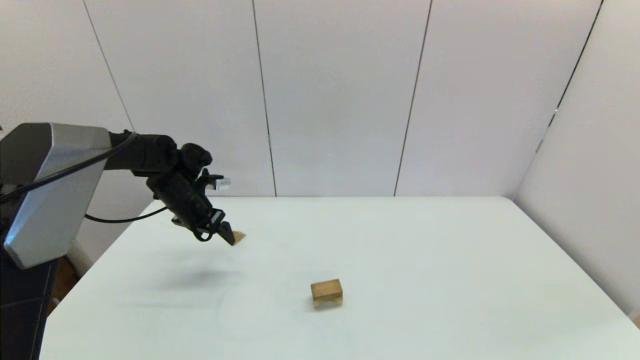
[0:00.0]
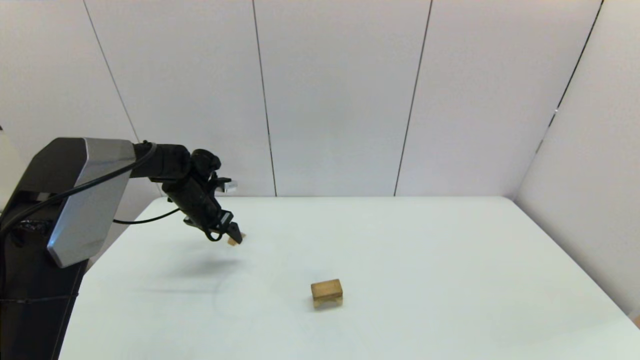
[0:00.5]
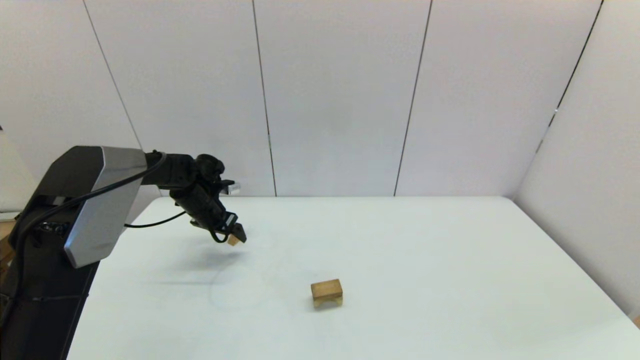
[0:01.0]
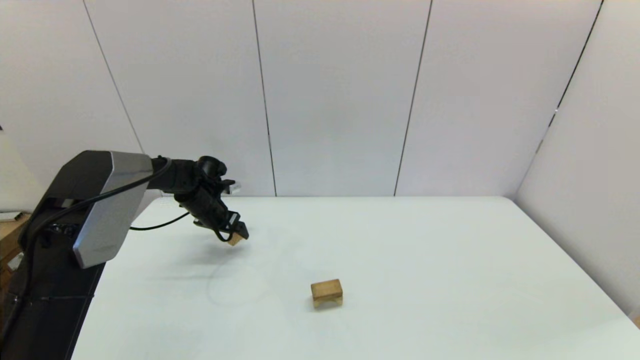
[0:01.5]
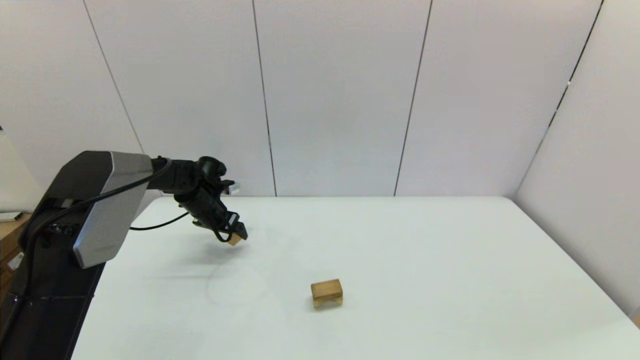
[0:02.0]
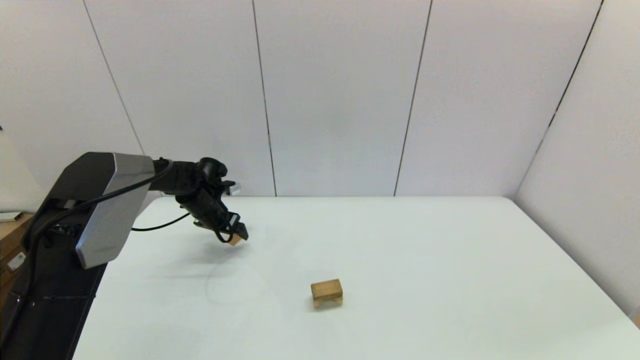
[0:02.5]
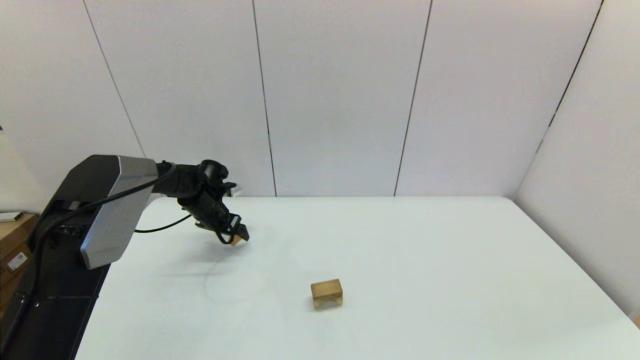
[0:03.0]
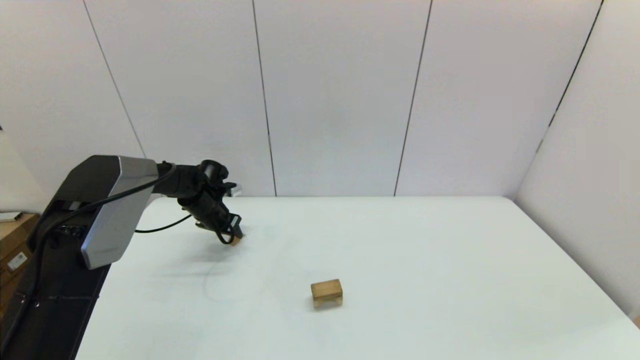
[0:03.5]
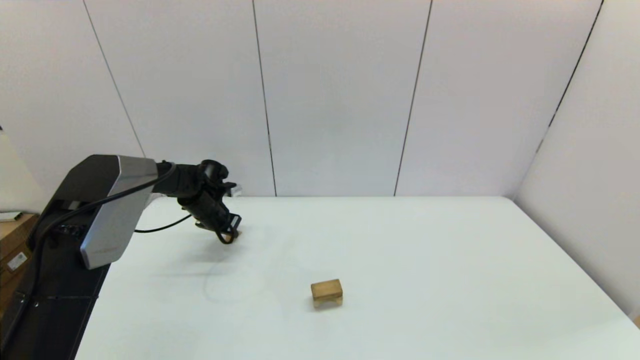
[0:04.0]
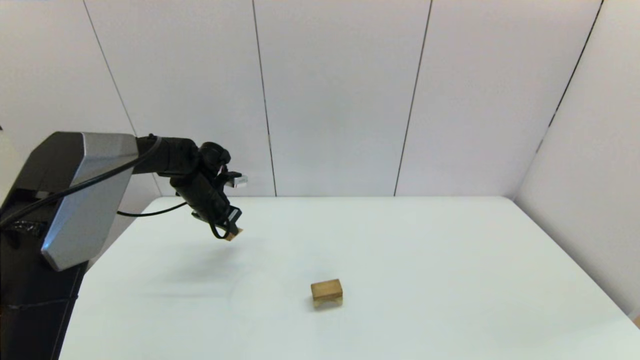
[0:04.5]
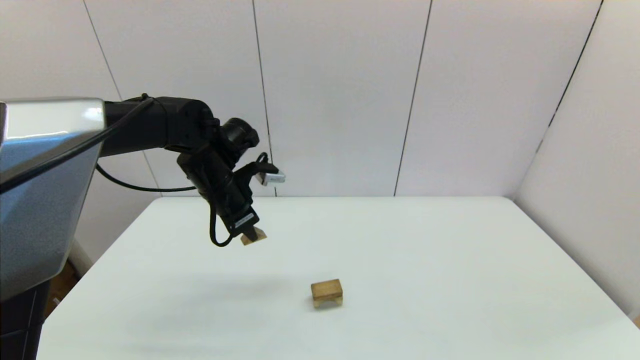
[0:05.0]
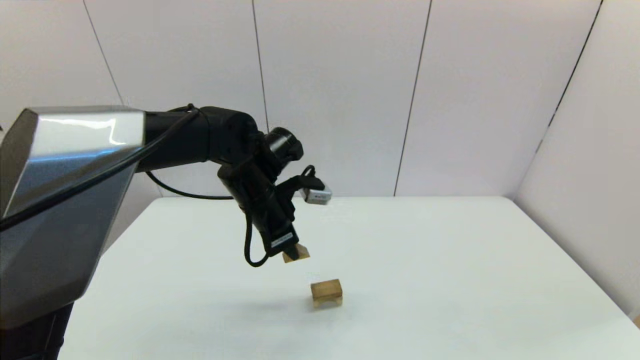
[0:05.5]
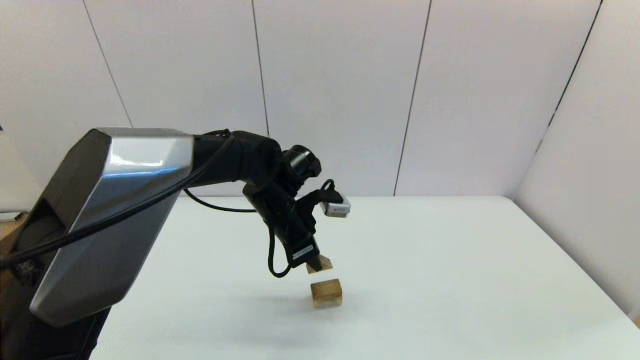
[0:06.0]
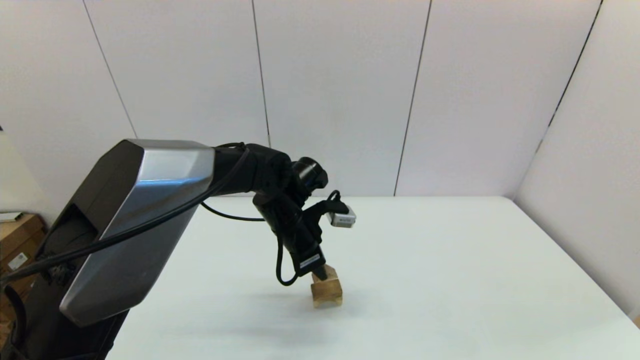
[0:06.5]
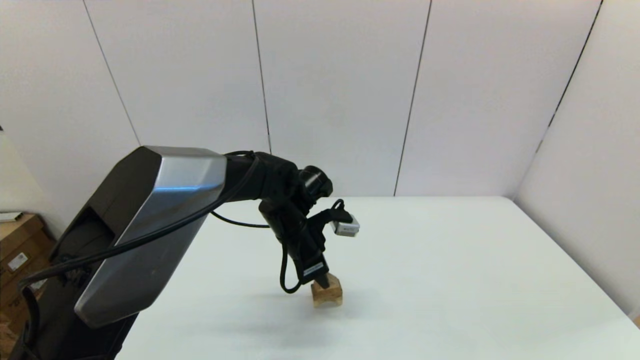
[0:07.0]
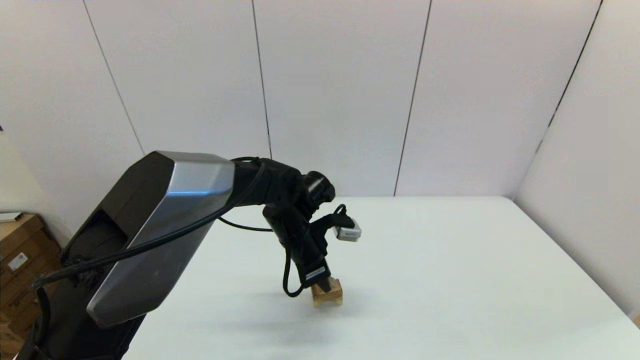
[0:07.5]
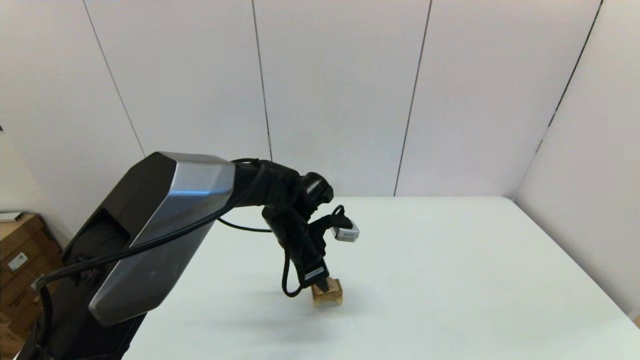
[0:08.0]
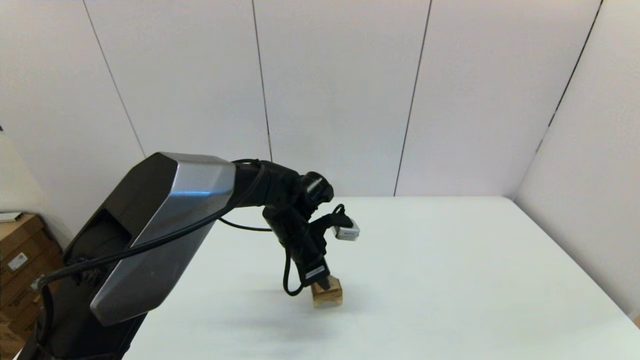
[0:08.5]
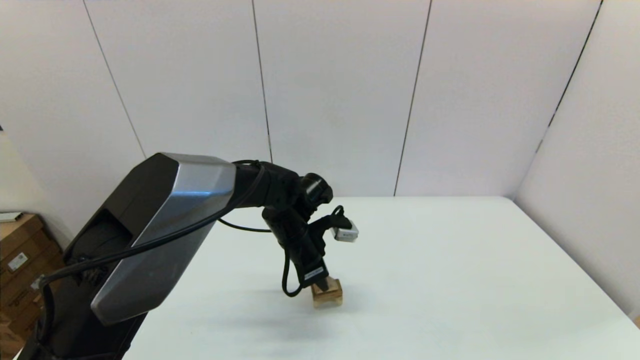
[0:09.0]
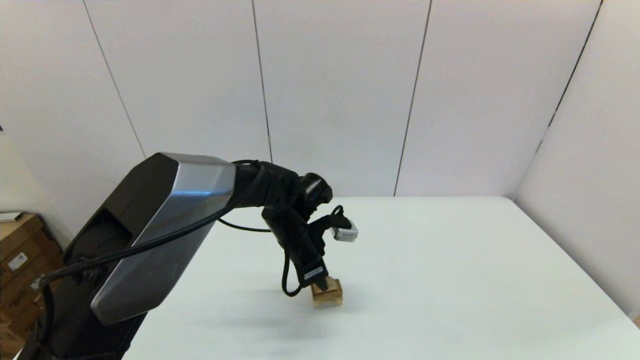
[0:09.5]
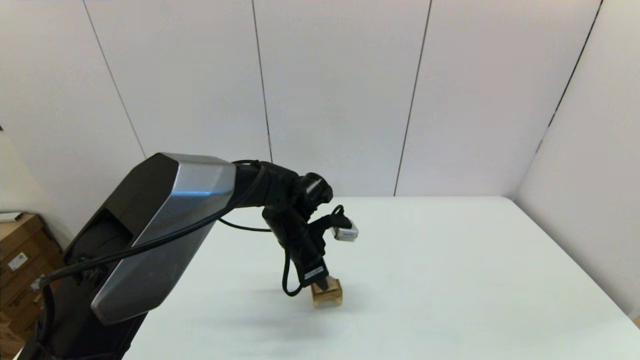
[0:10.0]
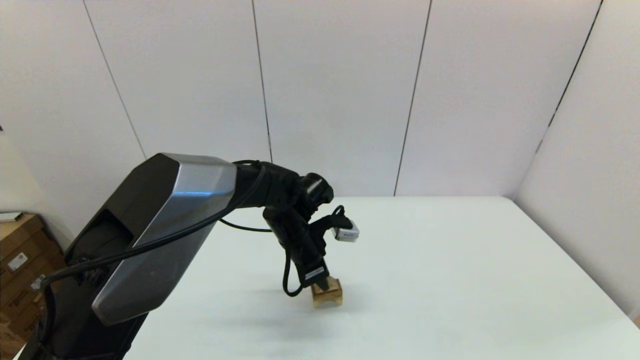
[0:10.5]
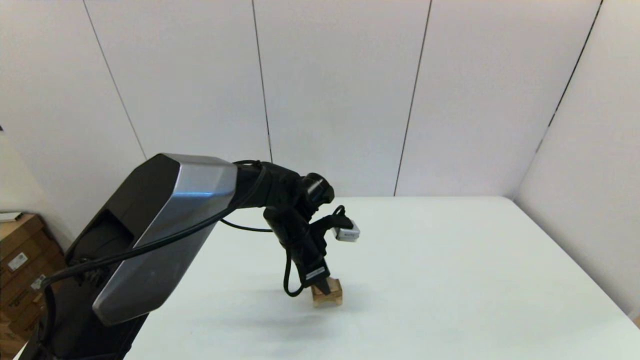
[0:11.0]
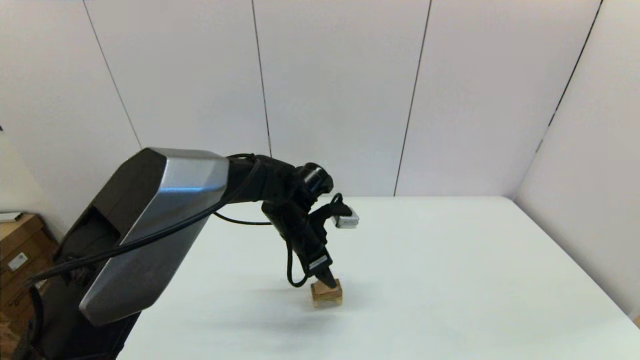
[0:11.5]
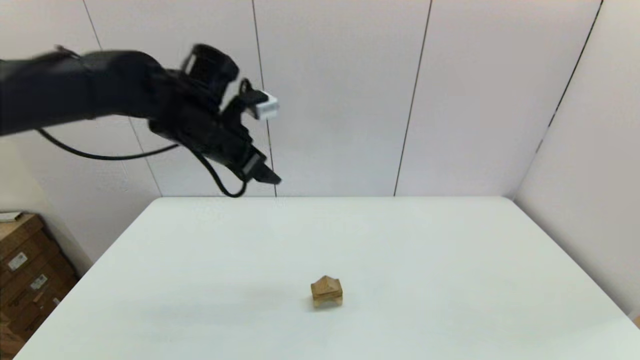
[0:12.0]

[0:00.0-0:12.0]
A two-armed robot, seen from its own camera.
Task of the whole recording: place the arched building blocks in the center of the table, set up the rectangular building blocks, and then set up the triangular building blocks.
Step, 0:00.0 to 0:03.5: Grasp the triangle-shaped block with the left gripper.
0:00.0 to 0:02.0: The left gripper shifts roughly 5 cm downward.
0:02.0 to 0:04.0: The left gripper closes.
0:04.0 to 0:06.0: The left gripper travels to the right, backward and upward by approximately 25 cm.
0:06.0 to 0:08.0: The left gripper shifts by about 5 cm.
0:08.0 to 0:10.0: The two grippers keep their place.
0:10.0 to 0:12.0: The left gripper is displaced upward and to the left by roughly 25 cm, and opens its fingers.

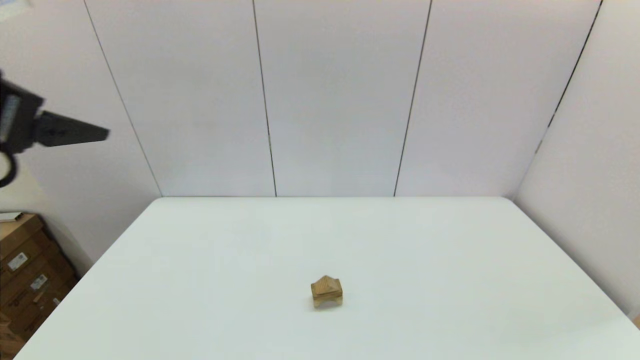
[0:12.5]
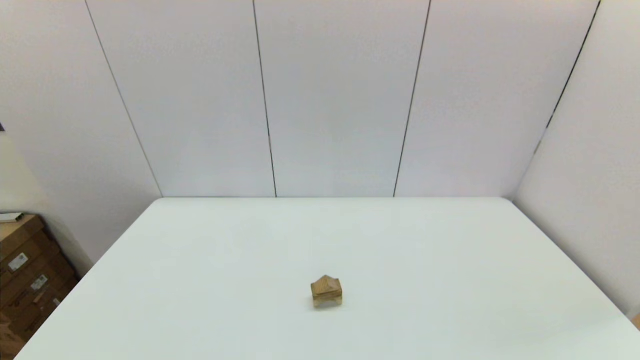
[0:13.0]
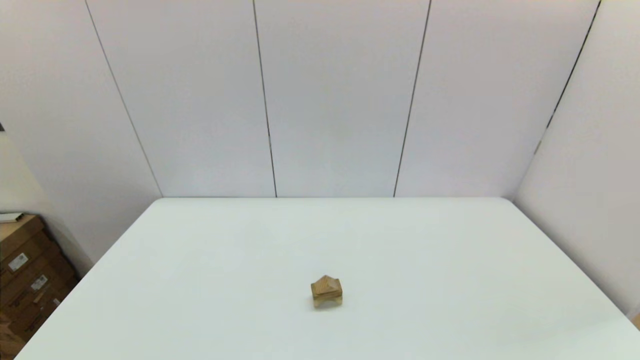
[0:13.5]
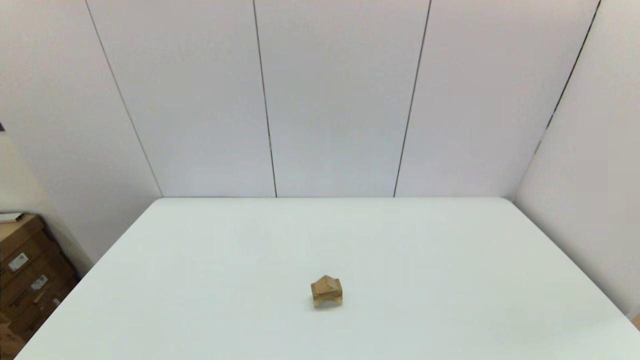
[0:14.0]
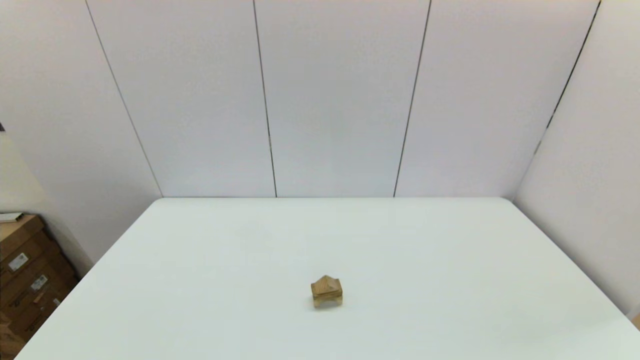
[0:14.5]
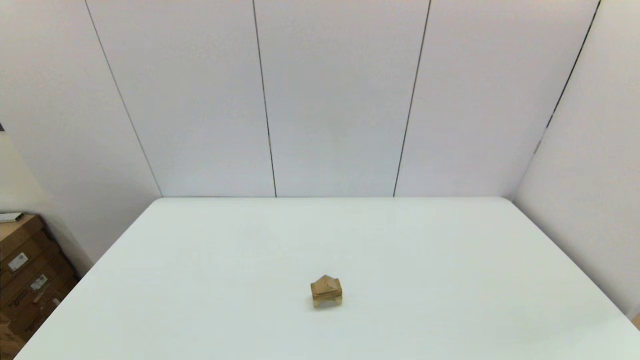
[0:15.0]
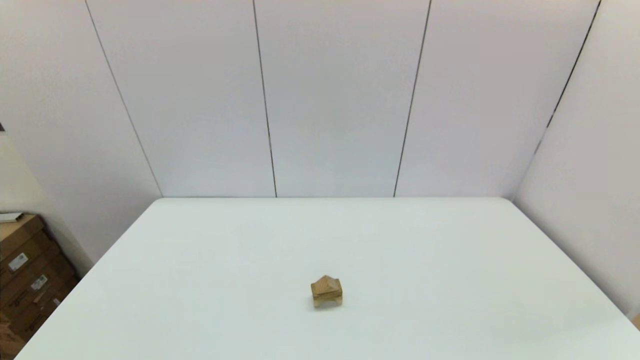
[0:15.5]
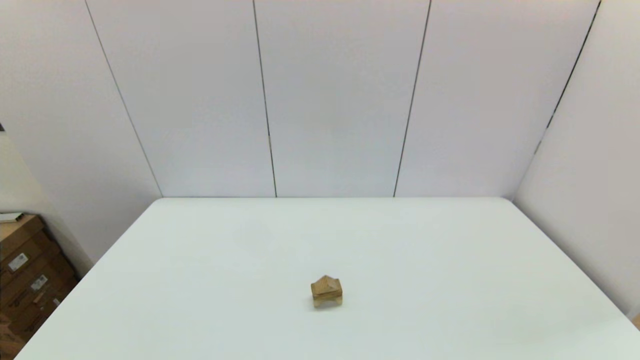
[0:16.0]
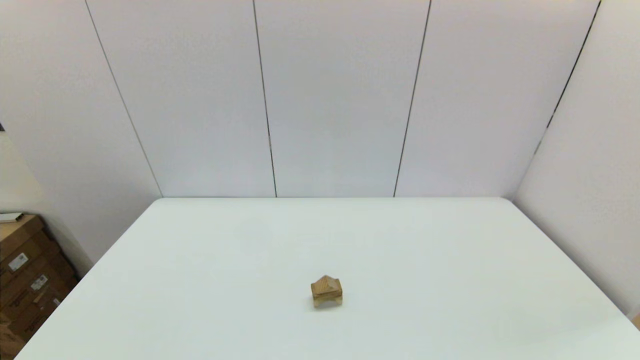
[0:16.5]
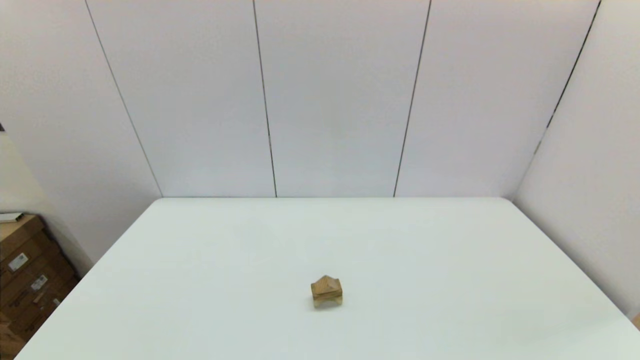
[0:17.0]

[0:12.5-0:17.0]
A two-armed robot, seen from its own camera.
Task of the whole recording: place the arched building blocks in the center of the table, set up the rectangular building blocks, and then set up the triangular building blocks.
0:12.5 to 0:14.5: The left gripper moves downward and backward, approximately 35 cm.

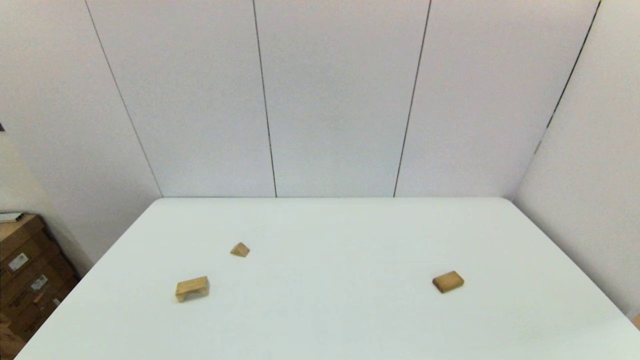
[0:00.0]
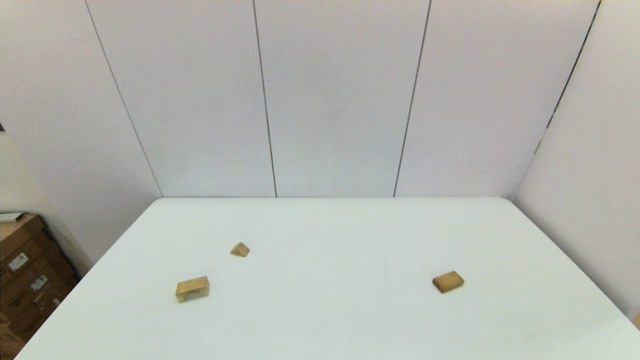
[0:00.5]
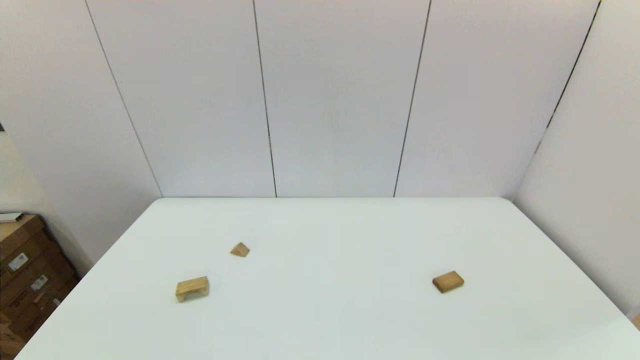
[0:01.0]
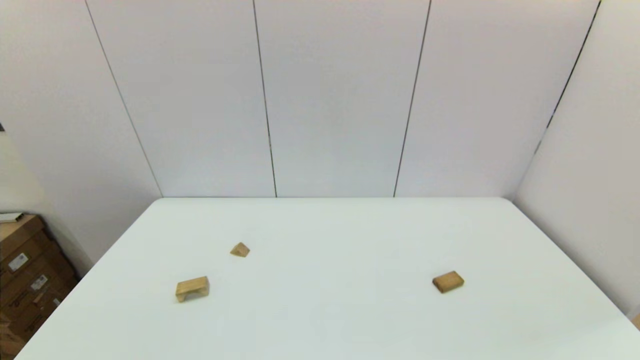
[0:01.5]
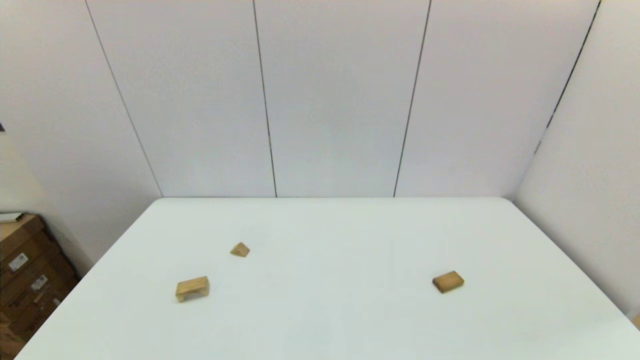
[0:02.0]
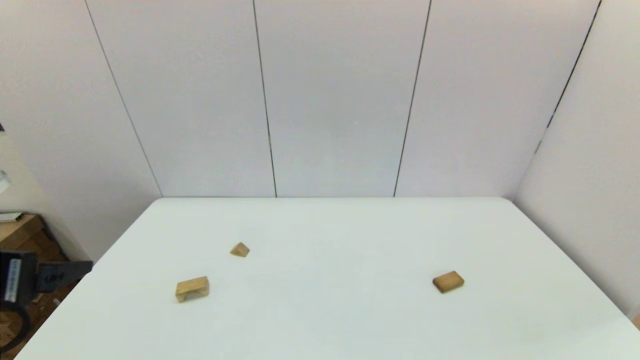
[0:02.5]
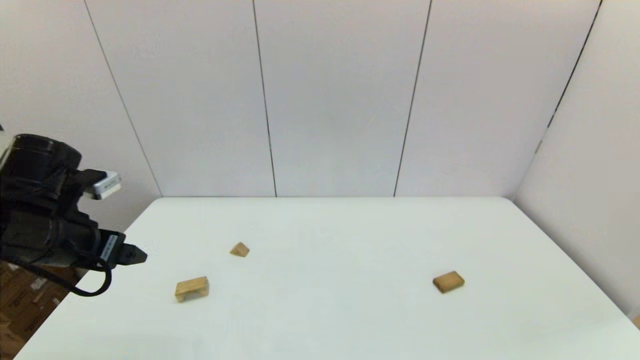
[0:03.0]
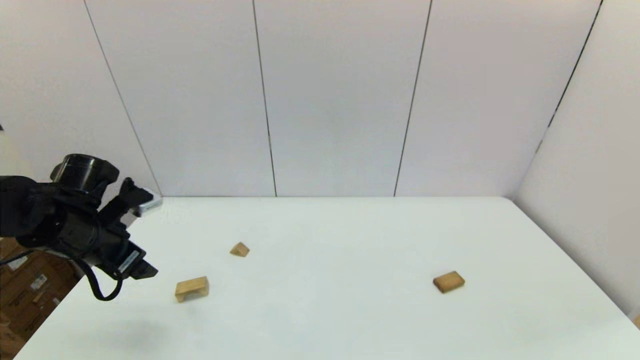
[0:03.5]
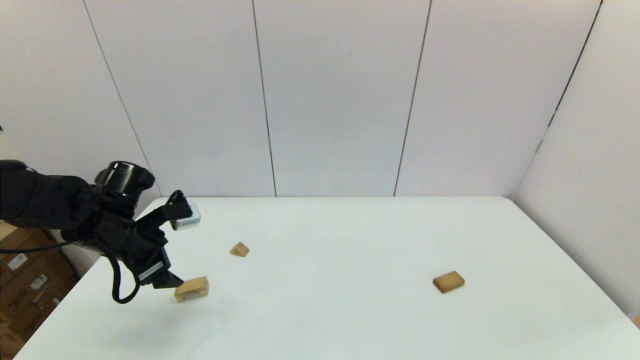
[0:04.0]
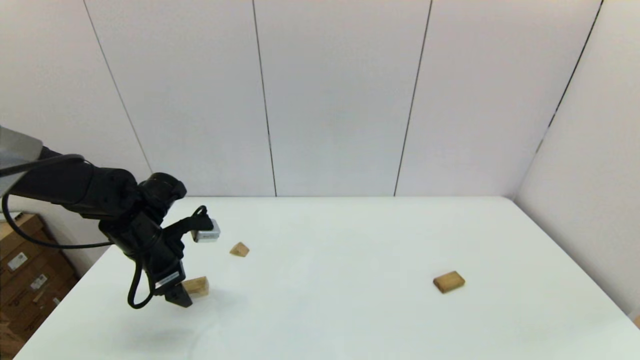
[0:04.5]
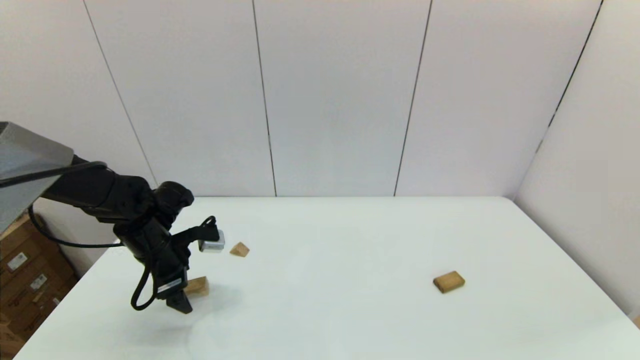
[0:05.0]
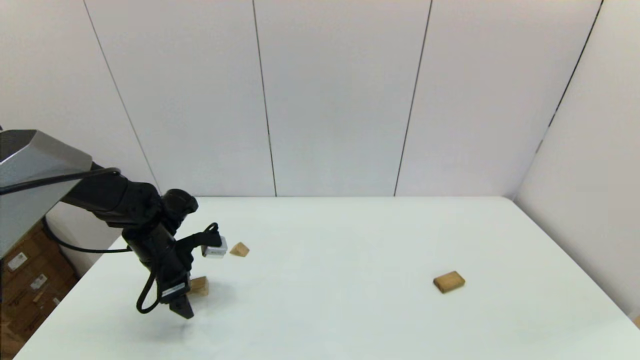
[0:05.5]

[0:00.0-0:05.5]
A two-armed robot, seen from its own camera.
Task of the whole recording: place the arched building blocks in the center of the table, set up the rectangular building blocks, and then set up the triangular building blocks.
0:02.0 to 0:03.5: The left gripper heads forward, covering some 30 cm.
0:03.5 to 0:05.5: The left gripper is displaced downward and forward by about 10 cm.
